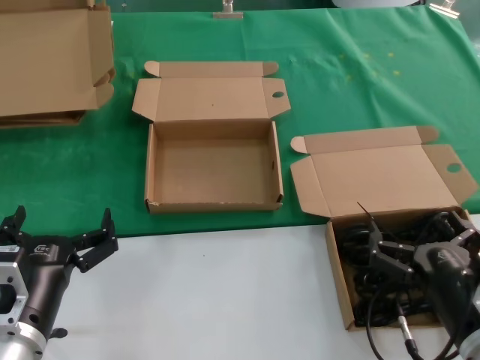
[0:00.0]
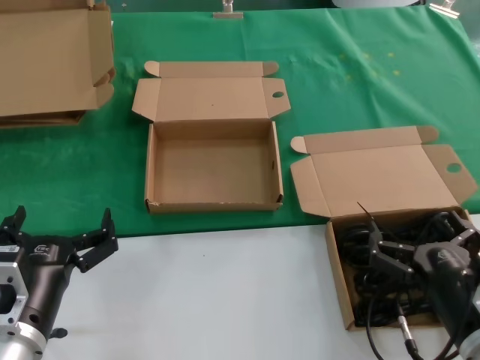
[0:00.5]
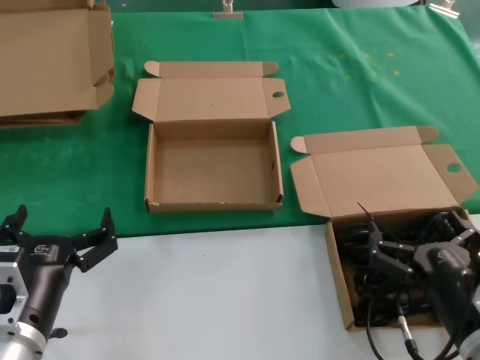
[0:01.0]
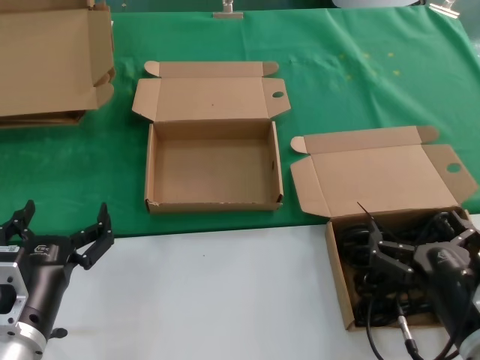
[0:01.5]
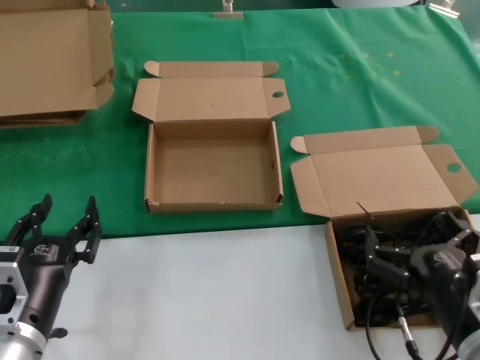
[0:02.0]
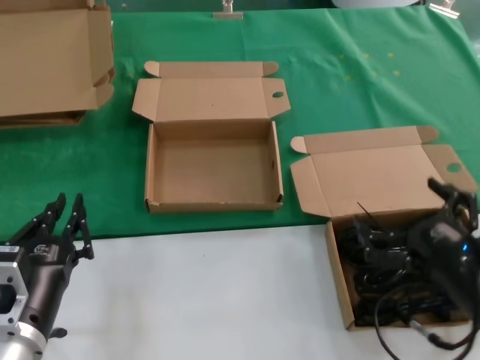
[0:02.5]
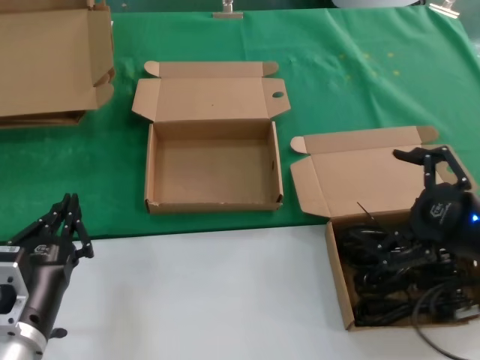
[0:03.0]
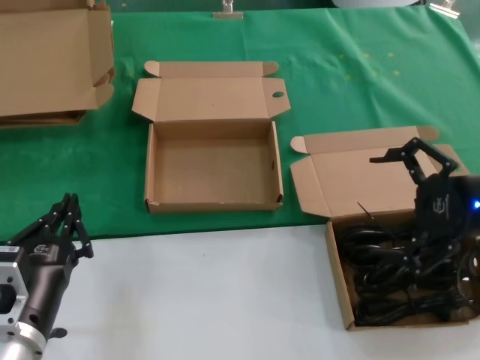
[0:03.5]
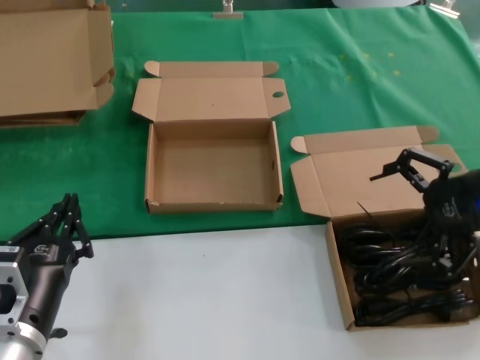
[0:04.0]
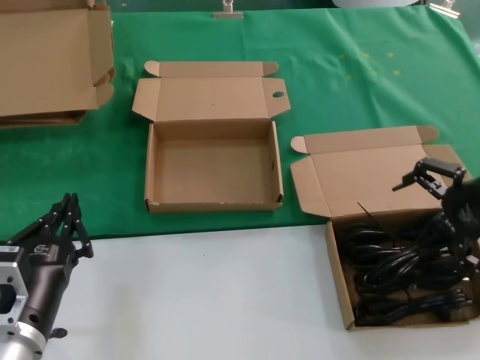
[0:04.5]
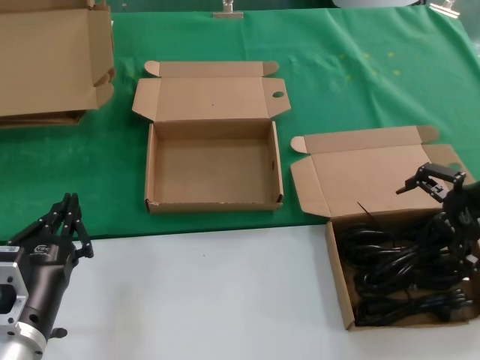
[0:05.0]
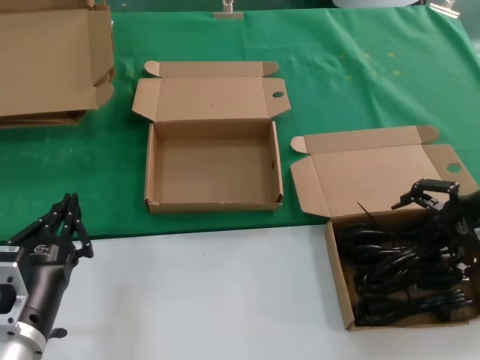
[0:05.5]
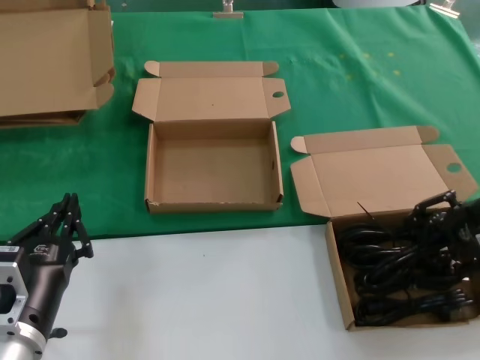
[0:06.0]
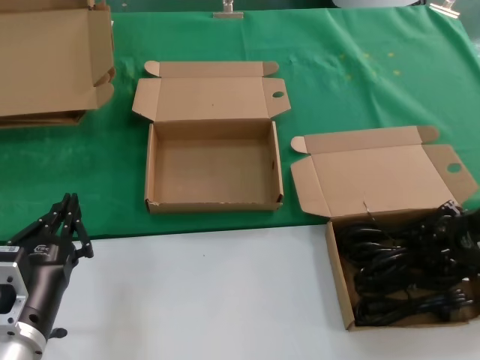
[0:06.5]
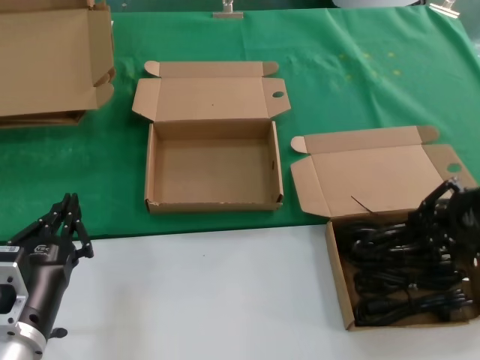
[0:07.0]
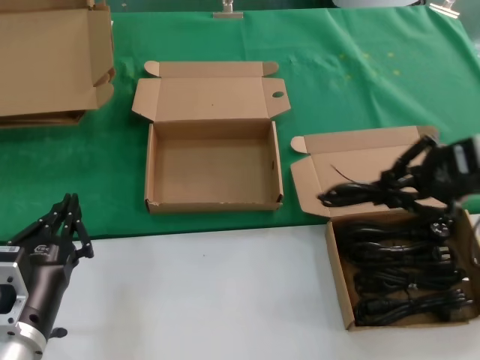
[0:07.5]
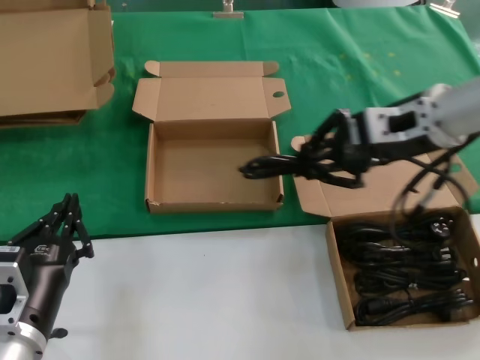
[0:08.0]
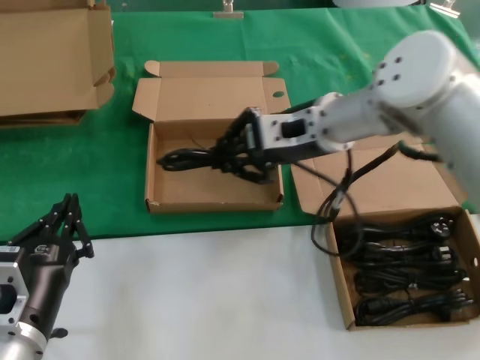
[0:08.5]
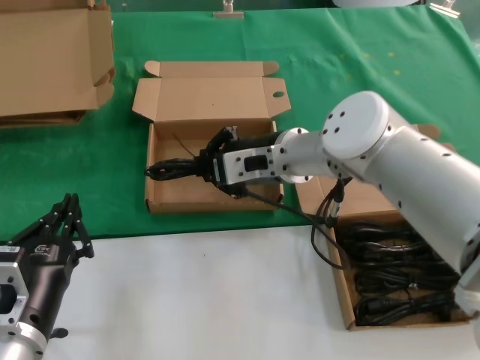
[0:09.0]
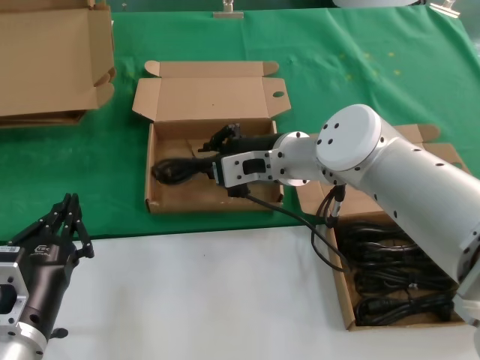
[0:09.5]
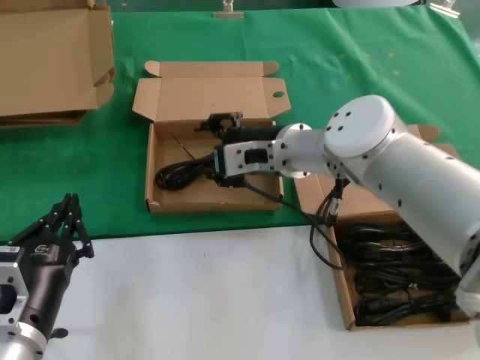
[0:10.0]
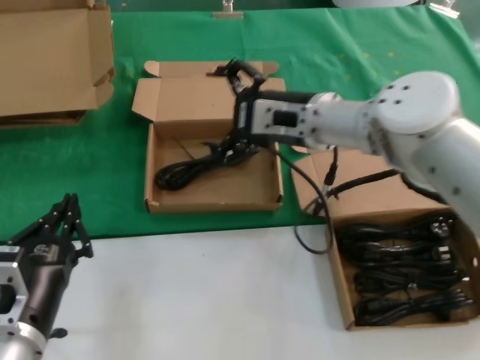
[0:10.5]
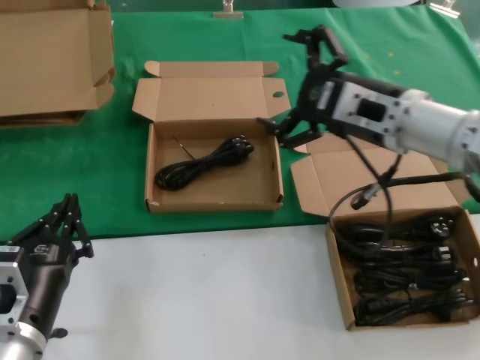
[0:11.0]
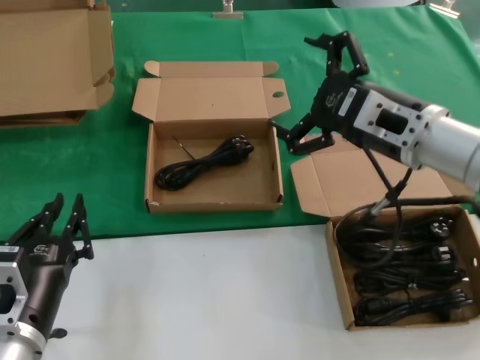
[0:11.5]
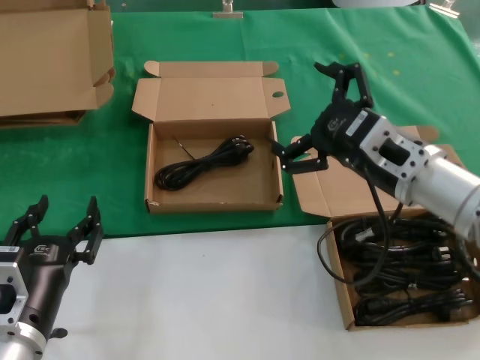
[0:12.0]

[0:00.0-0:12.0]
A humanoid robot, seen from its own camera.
Task of the whole recording: take the parts from the box containing them and put them into an empty box.
Step, 0.0 to 6.0 s: Grasp the data cable.
Step, 7.0 to 9.5 s: Place the data cable in the another box.
0.0 to 2.0 s: The two hands keep their place.
2.0 to 4.0 s: The right hand is displaced upward, forward and to the right by some 30 cm.
4.0 to 6.0 s: The right hand heads downward, covering about 5 cm.
6.0 to 8.0 s: The right hand travels to the left and upward by about 15 cm.
8.0 to 10.0 s: The right hand moves to the left and downward, about 20 cm.
10.0 to 12.0 s: The right hand heads to the right and backward, covering about 15 cm.

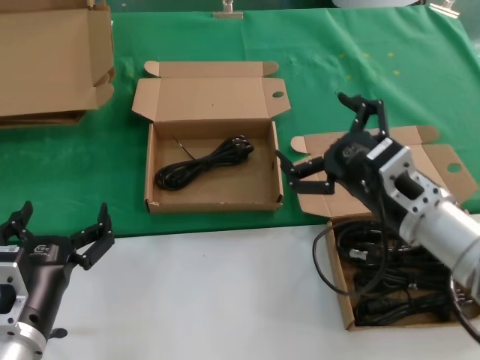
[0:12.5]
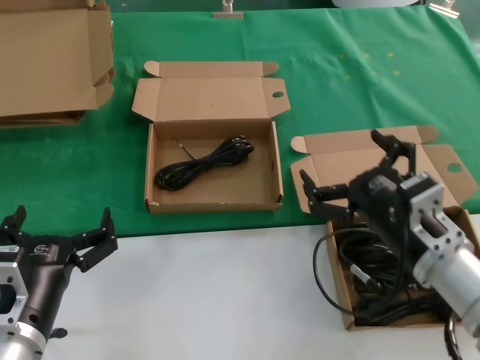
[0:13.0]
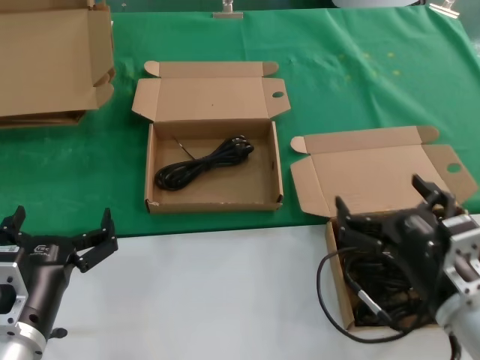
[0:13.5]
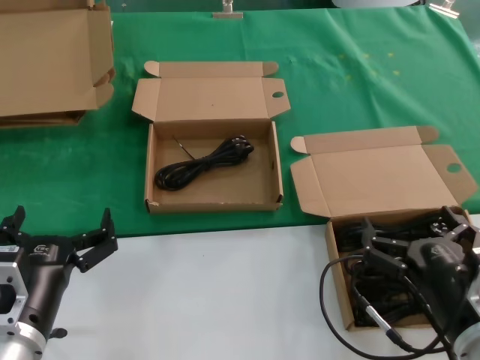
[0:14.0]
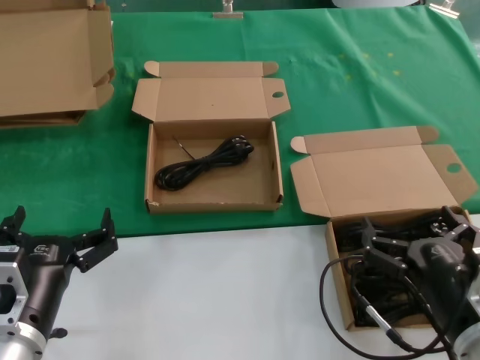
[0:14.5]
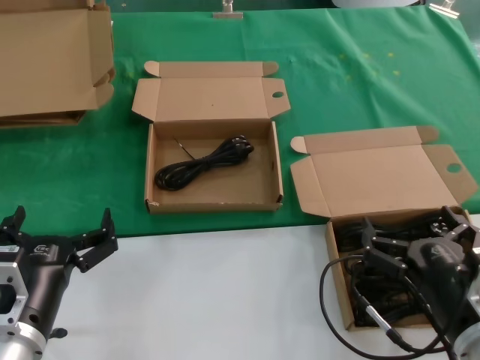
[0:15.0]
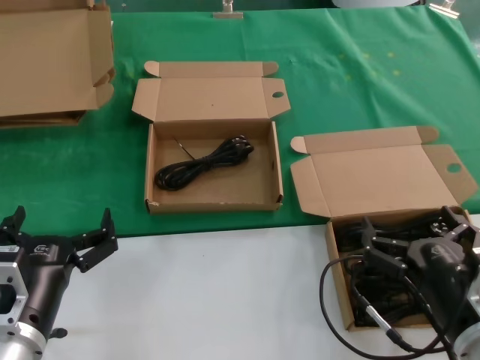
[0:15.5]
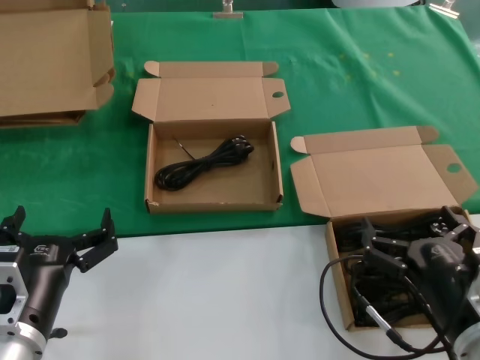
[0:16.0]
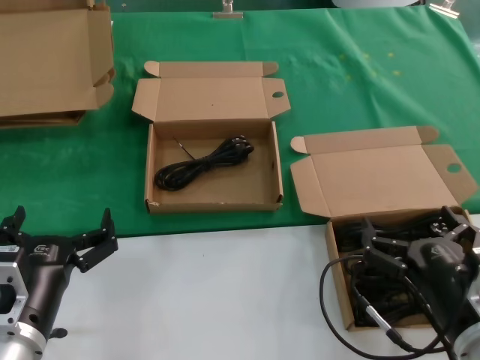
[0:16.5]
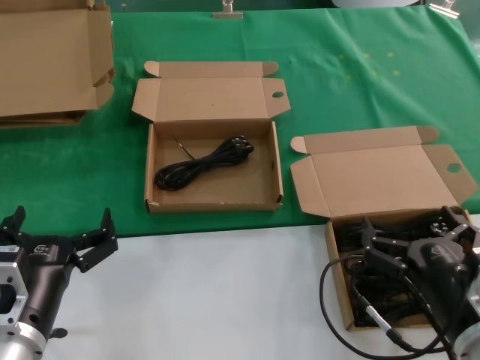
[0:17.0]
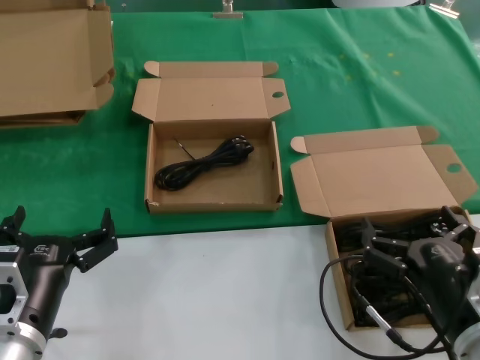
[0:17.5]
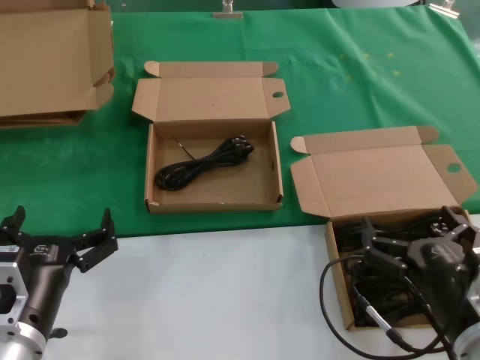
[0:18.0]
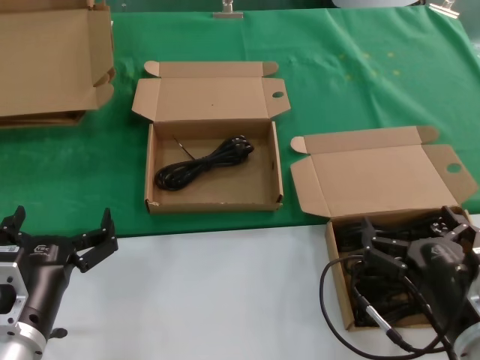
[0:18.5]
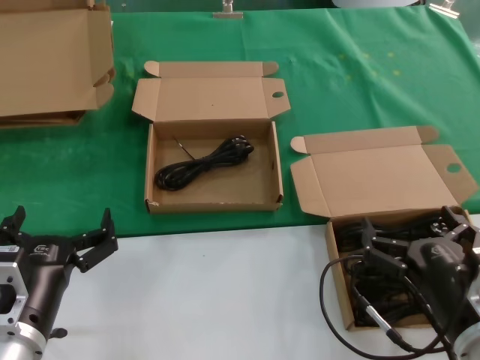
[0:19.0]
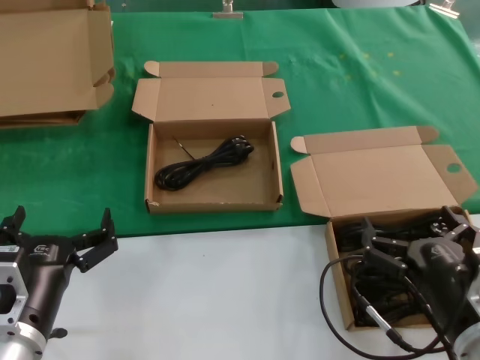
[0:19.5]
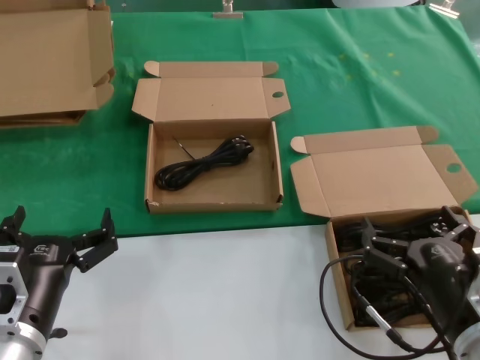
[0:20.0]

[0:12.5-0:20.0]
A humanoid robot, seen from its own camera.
Task of the whole recording: take the parts from the box containing them and put them into an empty box.
12.5 to 14.5 s: The right hand goes roughly 15 cm backward and downward.
14.5 to 20.0 s: Neither hand changes place.

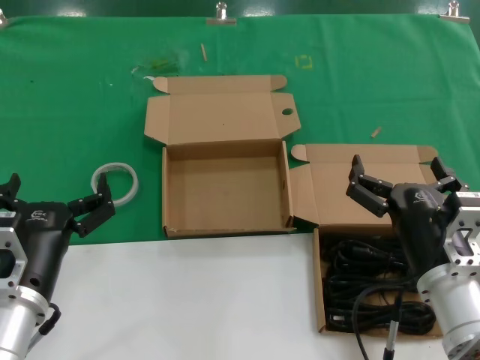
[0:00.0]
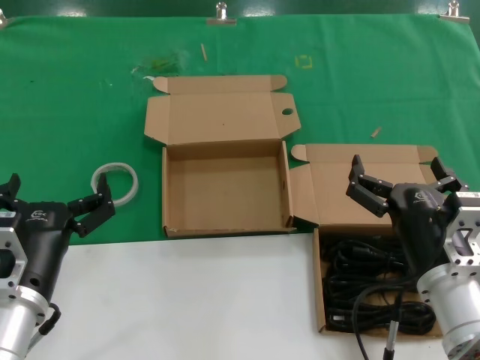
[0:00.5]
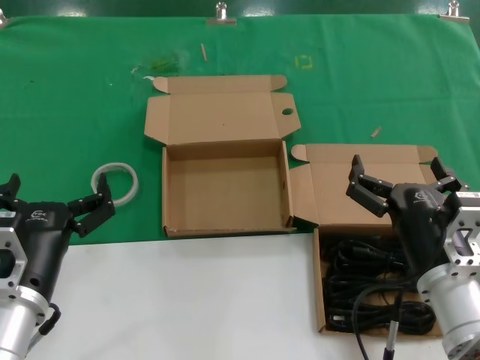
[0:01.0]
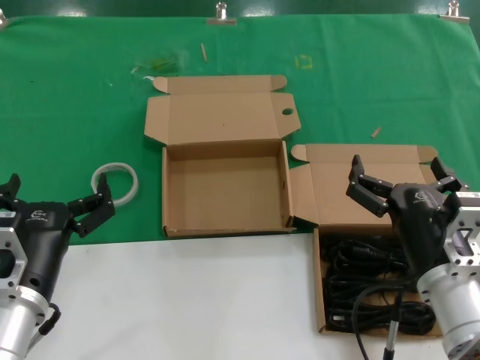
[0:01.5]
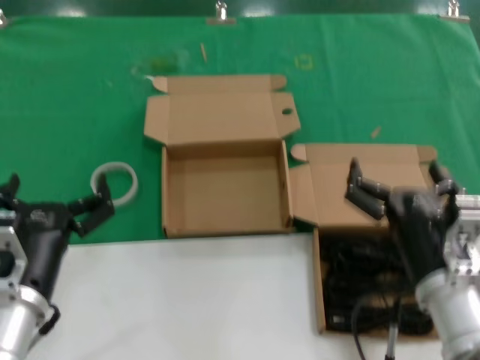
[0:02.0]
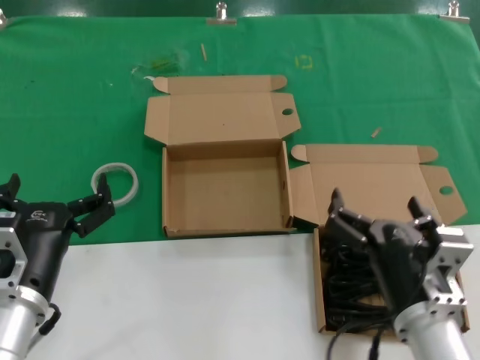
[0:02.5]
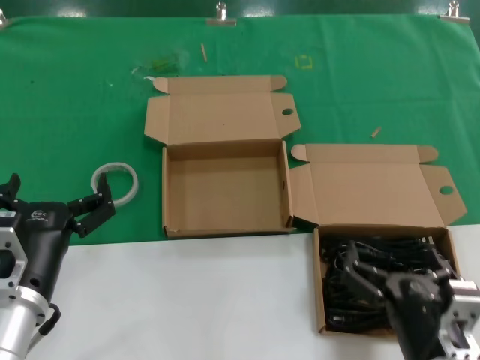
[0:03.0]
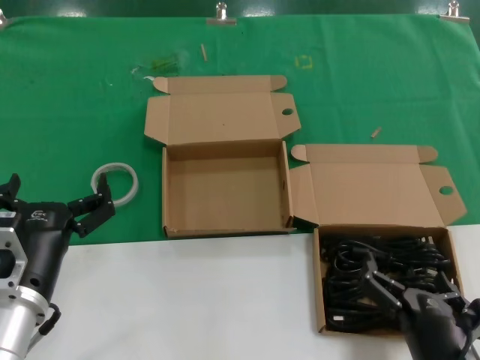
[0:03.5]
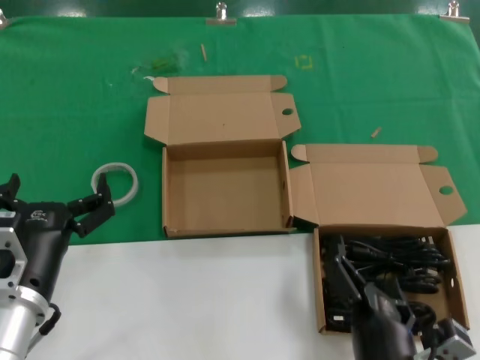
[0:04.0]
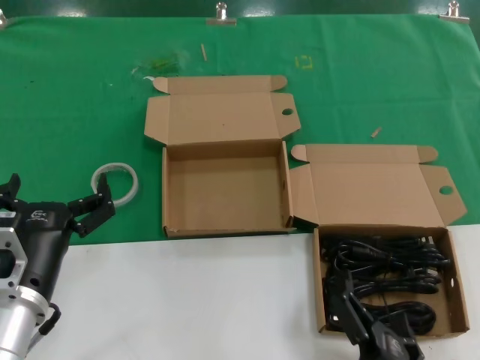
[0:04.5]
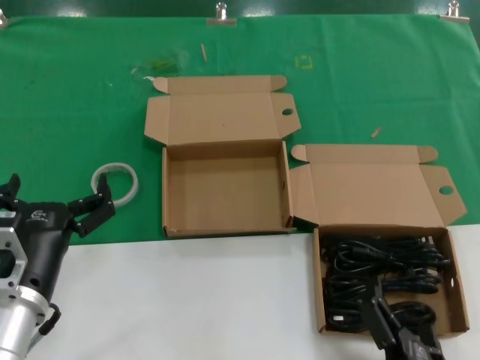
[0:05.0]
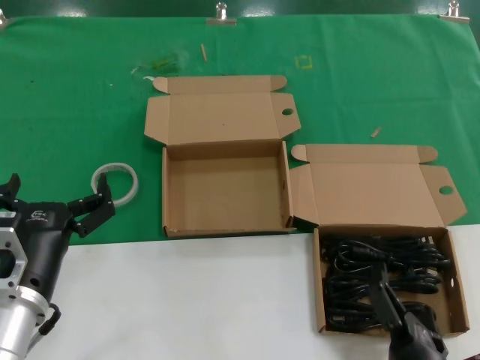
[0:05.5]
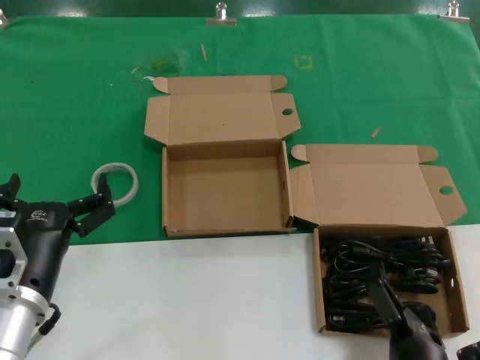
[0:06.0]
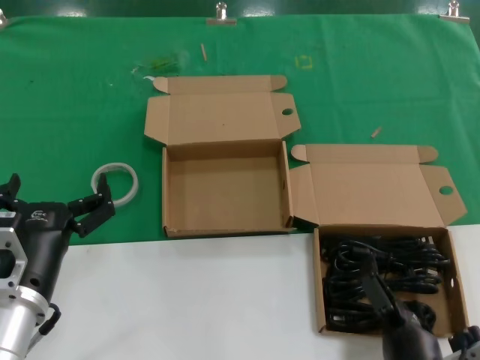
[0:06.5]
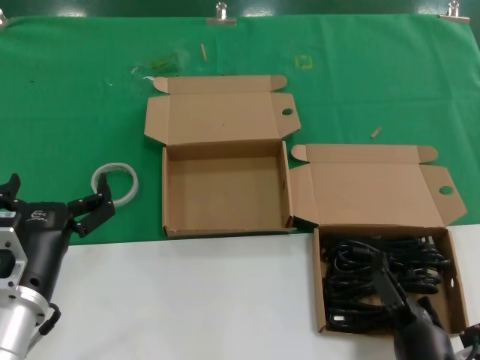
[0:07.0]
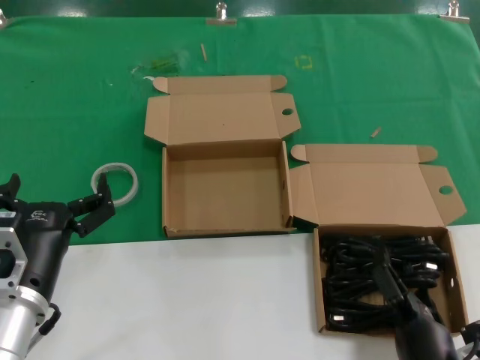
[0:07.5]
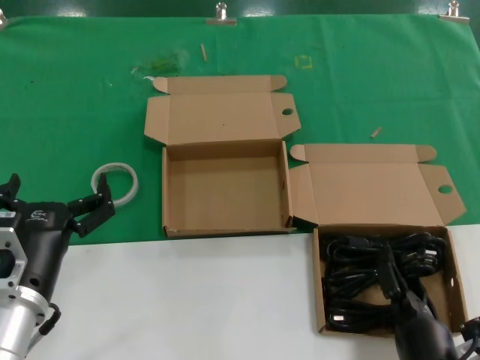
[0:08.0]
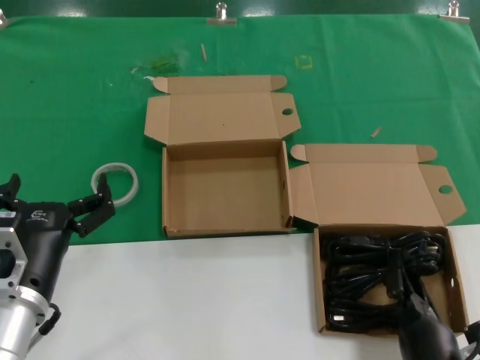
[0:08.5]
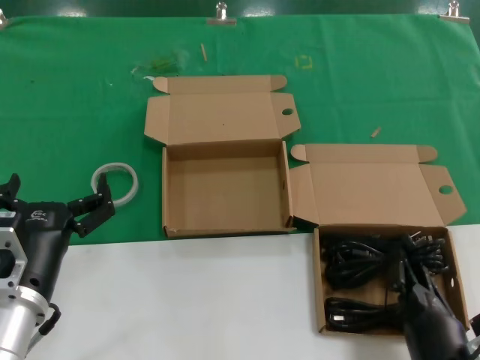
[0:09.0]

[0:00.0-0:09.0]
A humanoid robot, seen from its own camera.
Task of the whole recording: take the parts from the box containing them and put them into an empty box.
Step, 0.0 to 8.0 s: Grasp the data cable.
0.0 to 2.0 s: Both hands stay about where they are.
2.0 to 4.5 s: The right hand goes roughly 20 cm backward, to the left and downward.
4.5 to 7.0 s: The right hand is displaced to the right and forward by roughly 10 cm.
7.0 to 9.0 s: The hands stay close to where they were, moving slightly.
